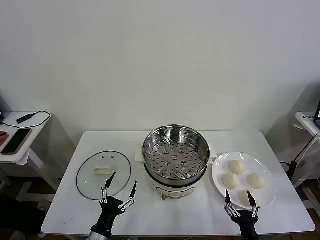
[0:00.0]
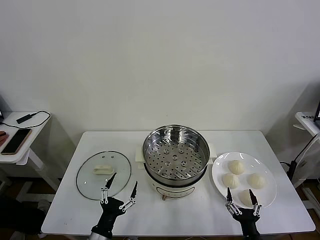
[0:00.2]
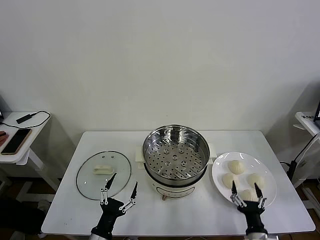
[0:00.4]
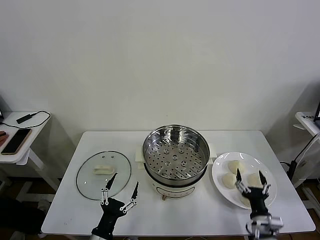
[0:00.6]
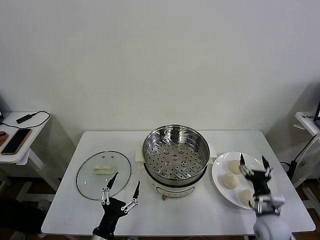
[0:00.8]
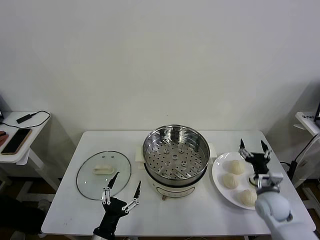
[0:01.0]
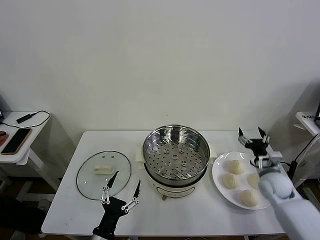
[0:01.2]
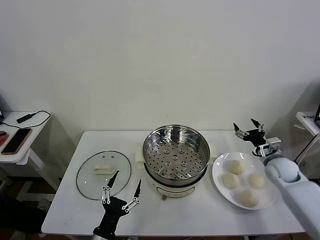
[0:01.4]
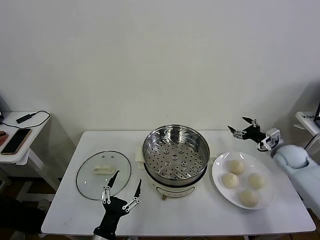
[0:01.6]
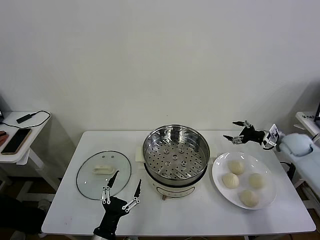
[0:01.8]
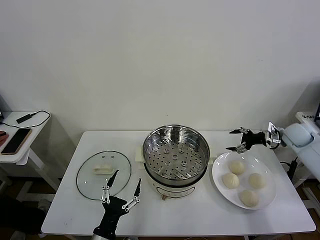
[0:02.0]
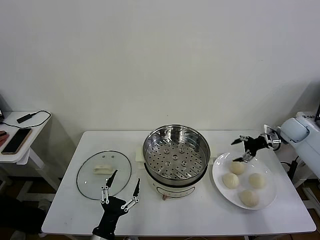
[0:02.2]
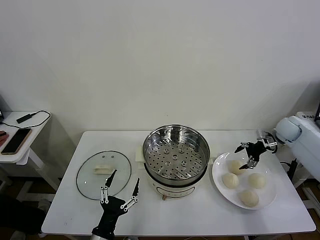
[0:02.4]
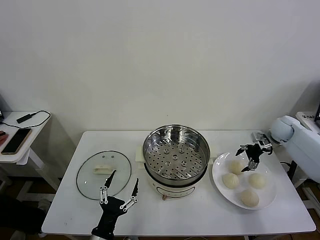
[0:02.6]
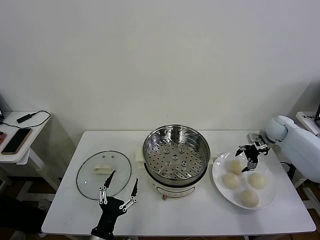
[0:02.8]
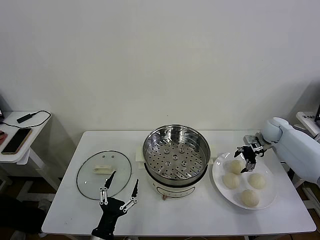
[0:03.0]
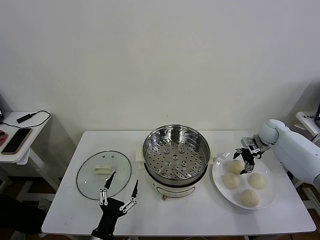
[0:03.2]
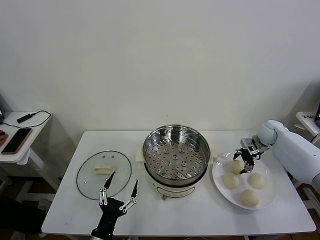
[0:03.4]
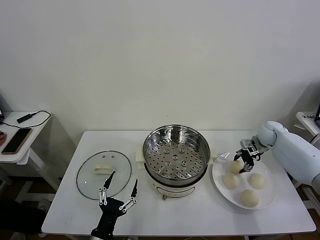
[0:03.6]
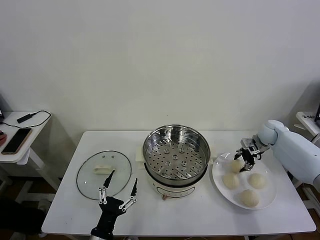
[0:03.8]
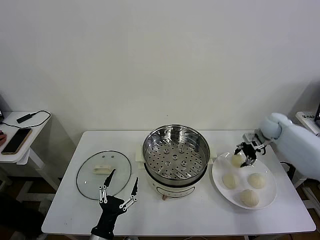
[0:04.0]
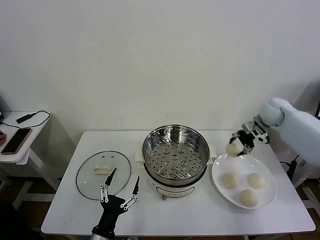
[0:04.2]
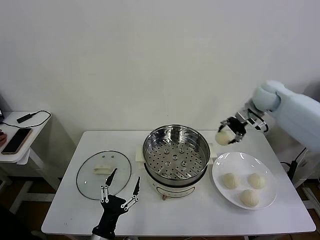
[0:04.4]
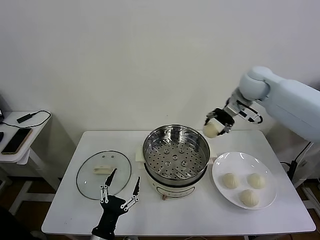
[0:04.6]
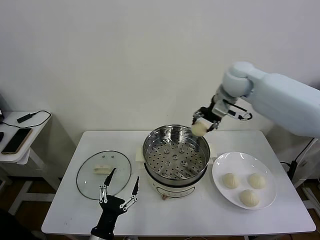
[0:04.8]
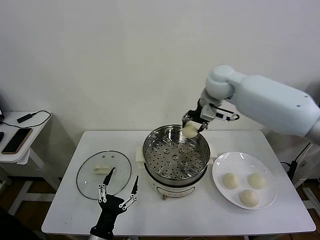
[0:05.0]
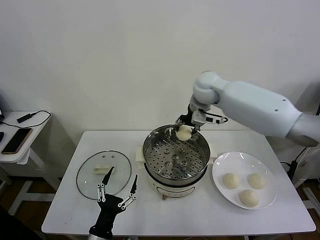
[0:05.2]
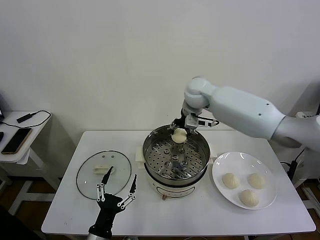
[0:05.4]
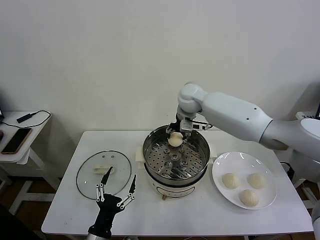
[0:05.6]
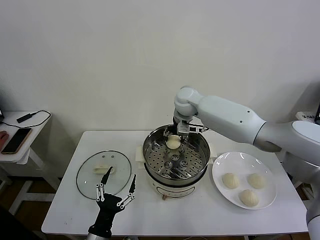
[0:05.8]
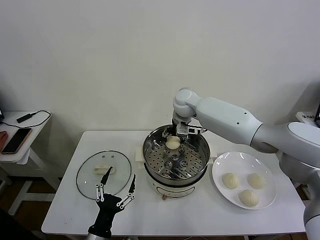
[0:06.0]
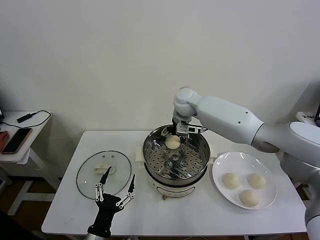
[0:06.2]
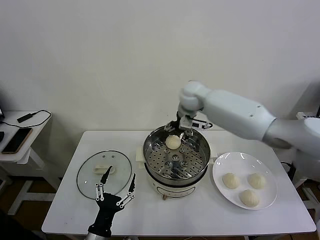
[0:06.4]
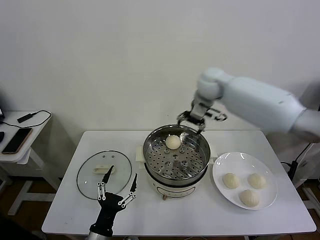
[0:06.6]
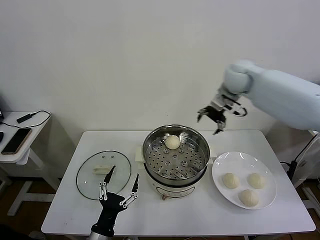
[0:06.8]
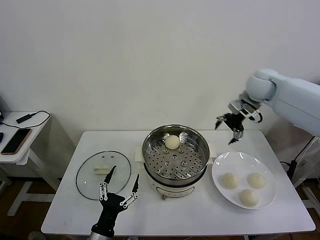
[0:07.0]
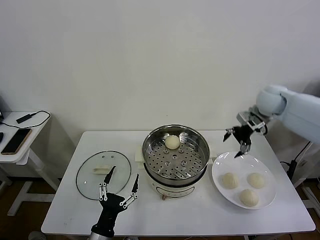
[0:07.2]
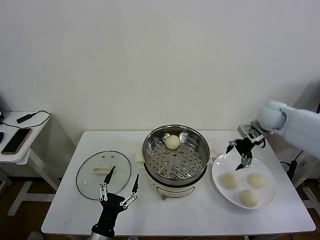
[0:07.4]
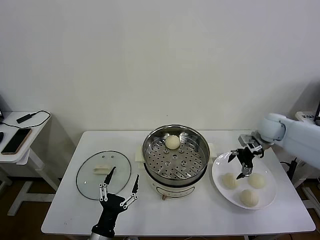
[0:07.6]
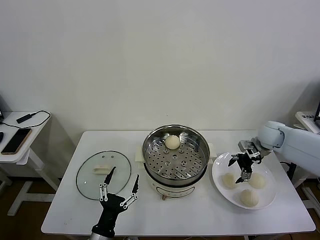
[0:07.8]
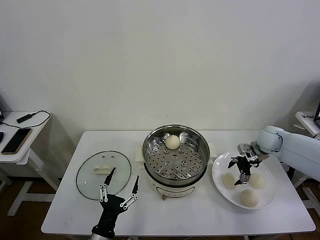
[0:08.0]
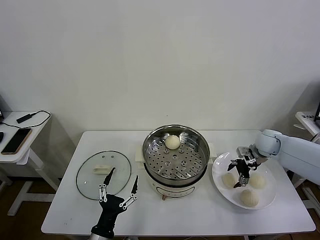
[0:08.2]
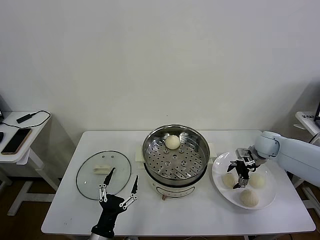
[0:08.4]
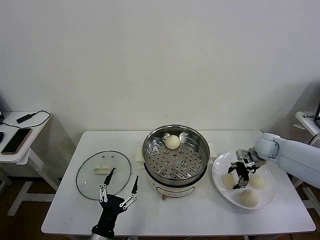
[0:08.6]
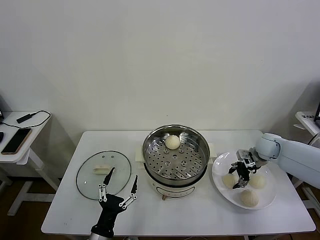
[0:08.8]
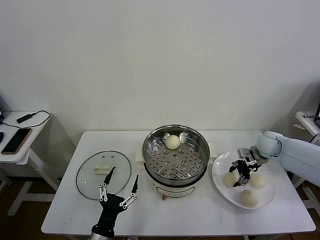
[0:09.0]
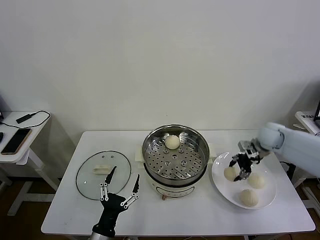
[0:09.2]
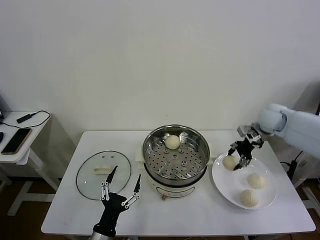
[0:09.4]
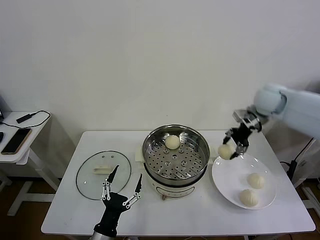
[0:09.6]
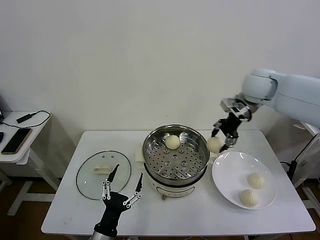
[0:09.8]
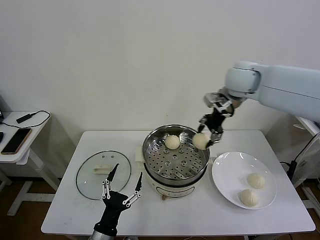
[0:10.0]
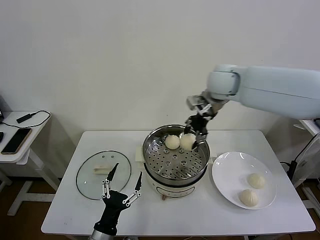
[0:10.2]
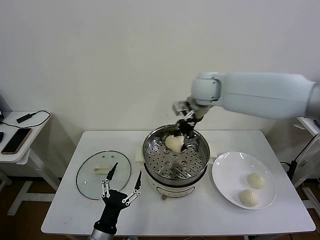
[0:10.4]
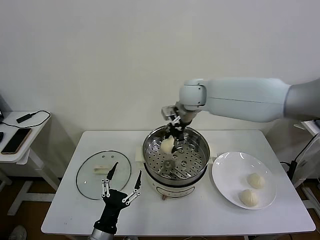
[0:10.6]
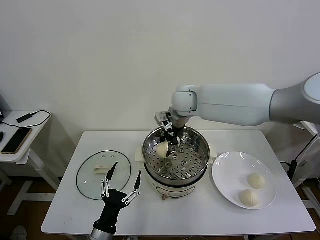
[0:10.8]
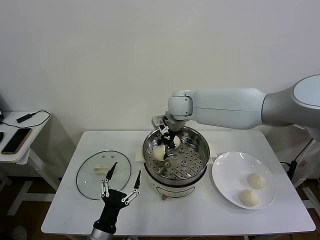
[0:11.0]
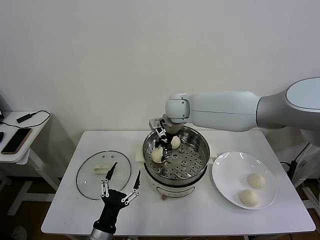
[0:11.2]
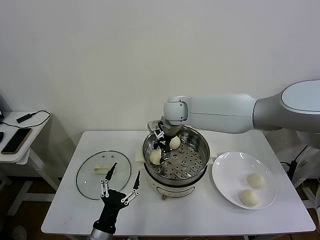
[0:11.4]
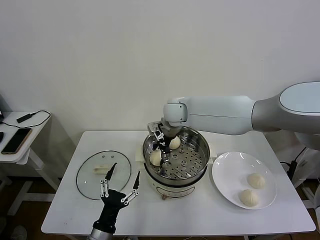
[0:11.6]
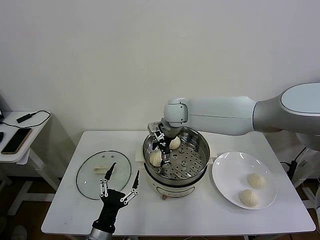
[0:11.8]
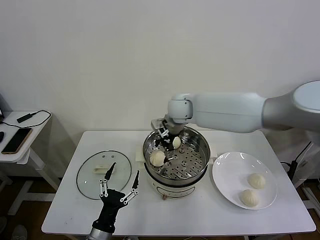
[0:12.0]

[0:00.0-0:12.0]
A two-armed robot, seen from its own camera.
Task of the whole recording: take steamed baozi put them in steamer then cover it.
Step, 0.0 to 3.6 s: Grasp the baozi in the plate with right gripper.
Step, 3.8 to 6.2 s: Place the baozi on the steamer with right gripper.
Step, 6.4 to 8.8 s: Grasp the baozi in the plate with right gripper.
Step, 9.0 to 11.6 s: Place the baozi on the steamer with right gripper.
1.6 to 3.0 s: The right gripper goes about 10 cm forward.
3.0 to 4.4 s: The right gripper heads upward and to the left, covering approximately 25 cm, and closes.
4.4 to 6.0 s: The right gripper moves to the left, about 25 cm, and opens up.
6.0 to 7.6 s: The right gripper is displaced to the right by roughly 30 cm.
7.6 to 9.0 s: The right gripper closes up.
9.0 to 10.4 s: The right gripper moves to the left and upward, approximately 35 cm.
10.4 to 12.0 s: The right gripper is displaced downward by about 5 cm, and opens.

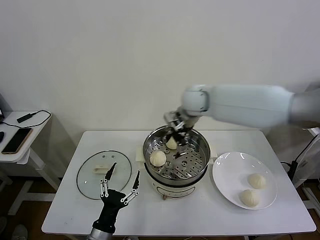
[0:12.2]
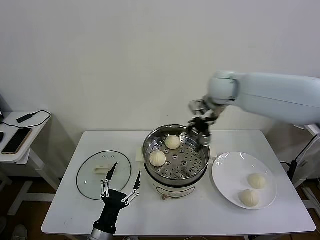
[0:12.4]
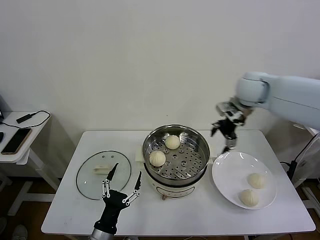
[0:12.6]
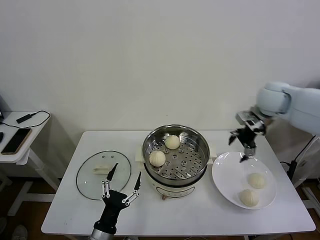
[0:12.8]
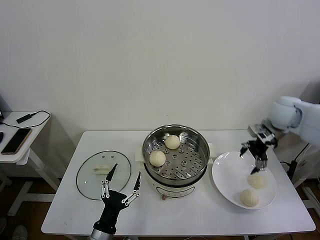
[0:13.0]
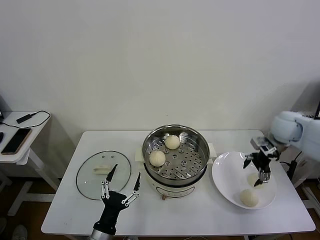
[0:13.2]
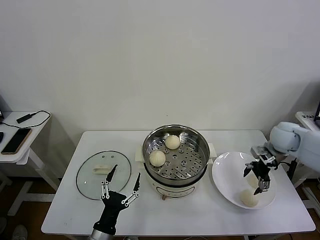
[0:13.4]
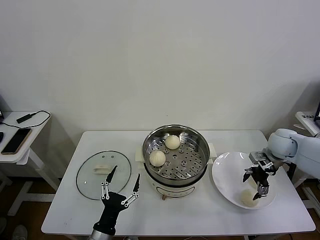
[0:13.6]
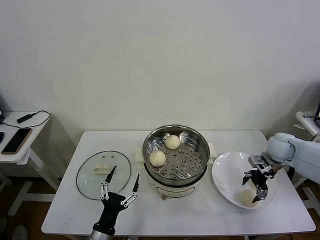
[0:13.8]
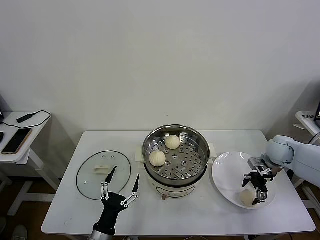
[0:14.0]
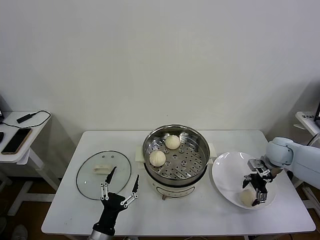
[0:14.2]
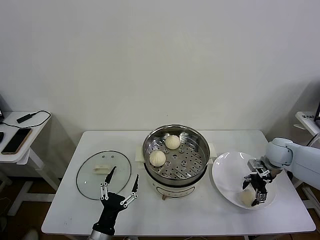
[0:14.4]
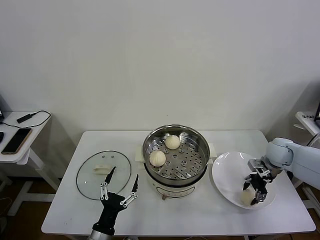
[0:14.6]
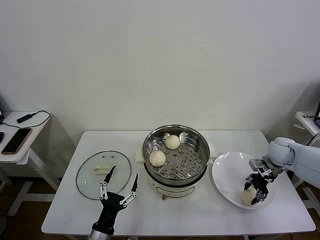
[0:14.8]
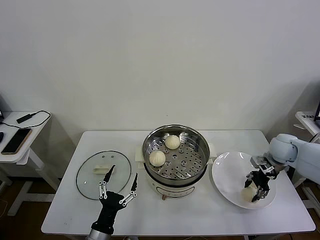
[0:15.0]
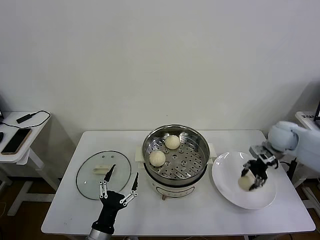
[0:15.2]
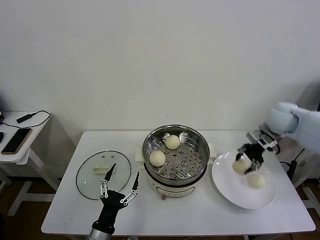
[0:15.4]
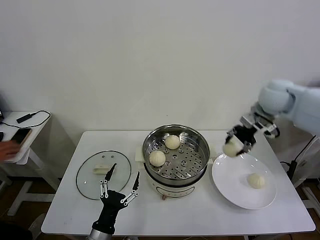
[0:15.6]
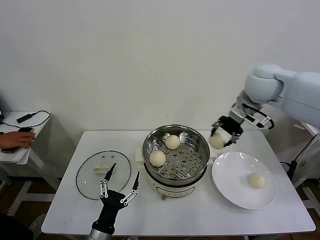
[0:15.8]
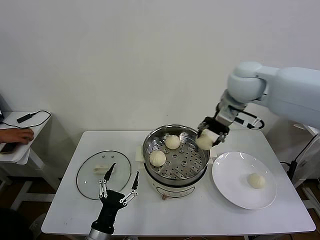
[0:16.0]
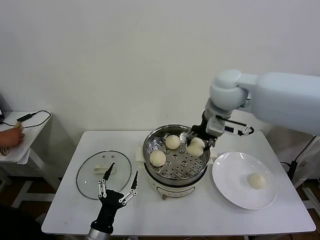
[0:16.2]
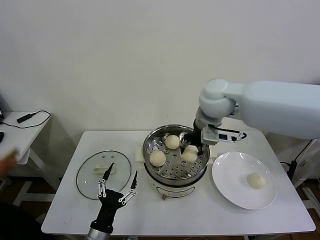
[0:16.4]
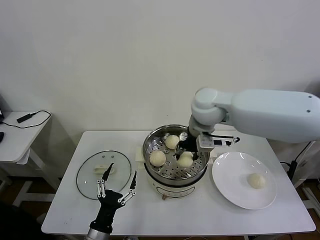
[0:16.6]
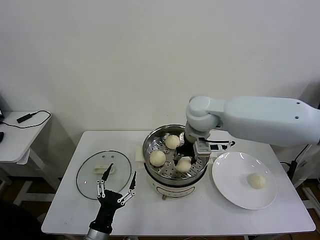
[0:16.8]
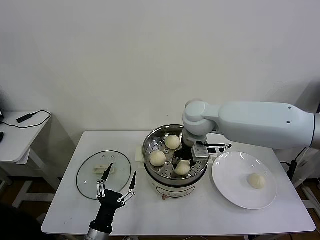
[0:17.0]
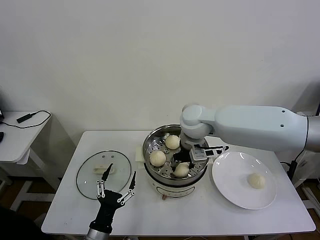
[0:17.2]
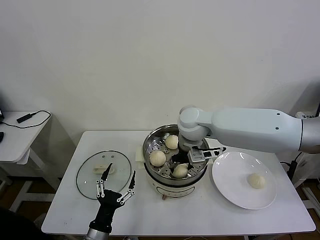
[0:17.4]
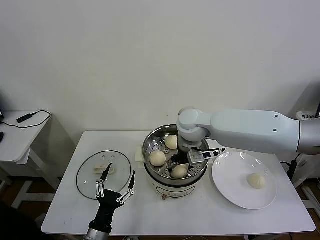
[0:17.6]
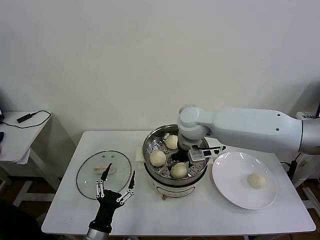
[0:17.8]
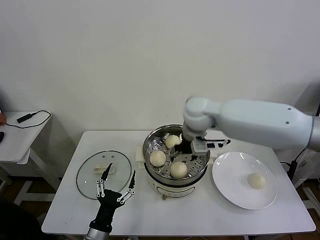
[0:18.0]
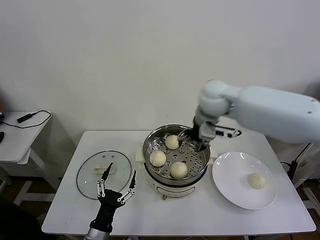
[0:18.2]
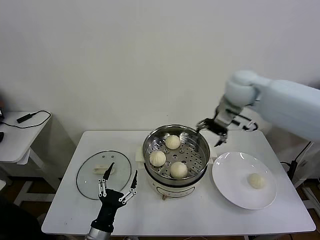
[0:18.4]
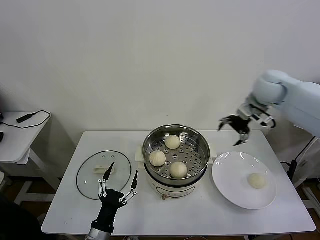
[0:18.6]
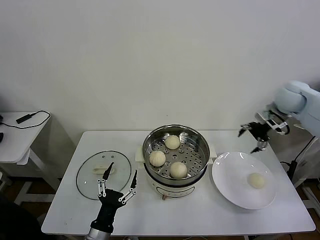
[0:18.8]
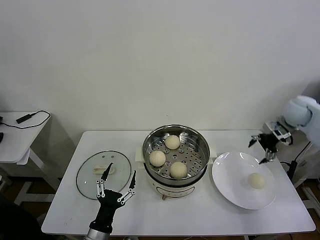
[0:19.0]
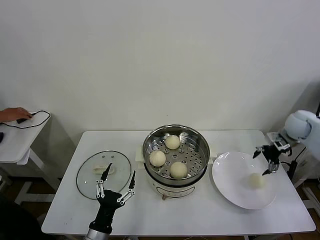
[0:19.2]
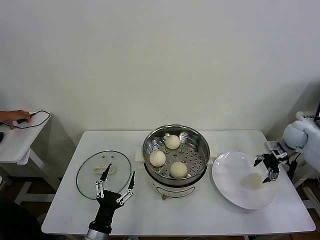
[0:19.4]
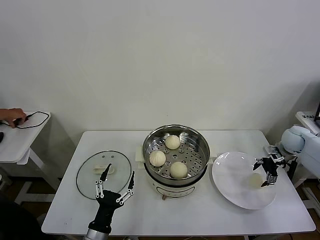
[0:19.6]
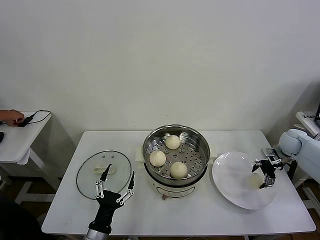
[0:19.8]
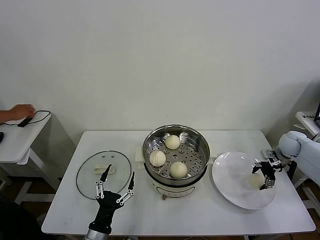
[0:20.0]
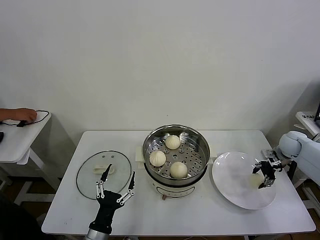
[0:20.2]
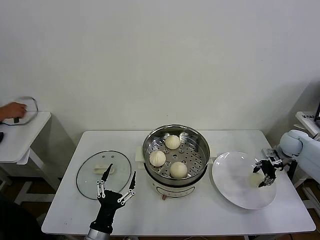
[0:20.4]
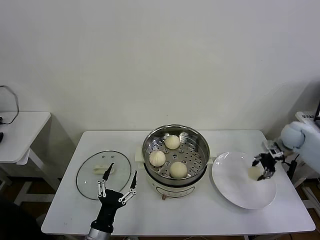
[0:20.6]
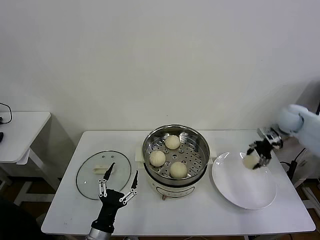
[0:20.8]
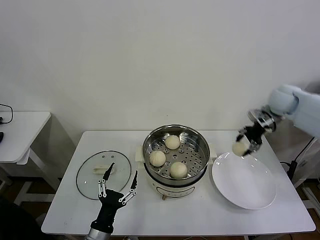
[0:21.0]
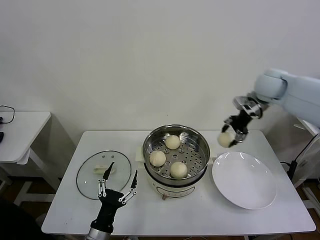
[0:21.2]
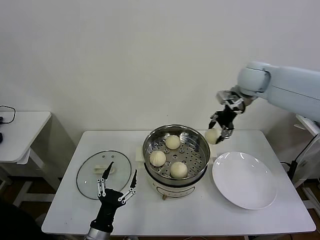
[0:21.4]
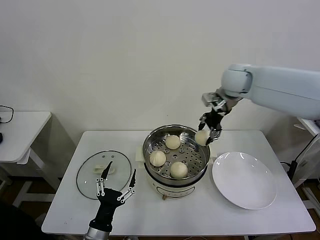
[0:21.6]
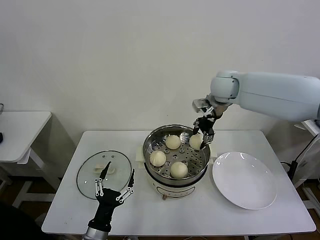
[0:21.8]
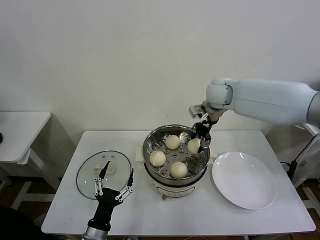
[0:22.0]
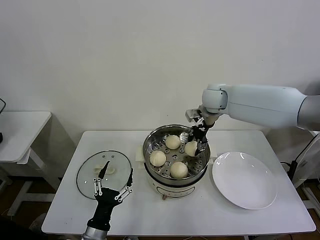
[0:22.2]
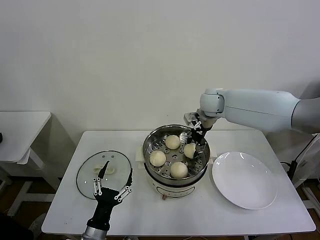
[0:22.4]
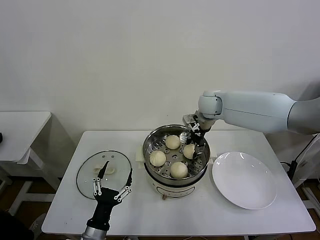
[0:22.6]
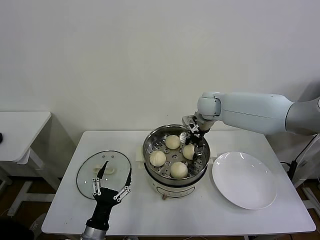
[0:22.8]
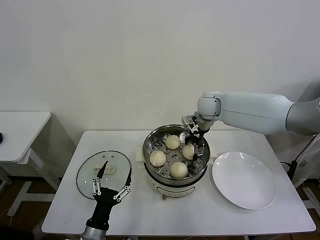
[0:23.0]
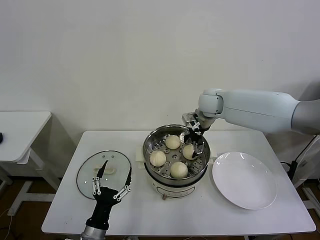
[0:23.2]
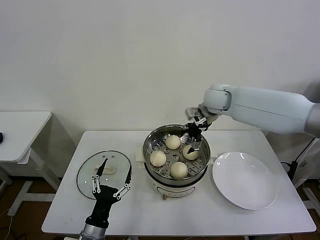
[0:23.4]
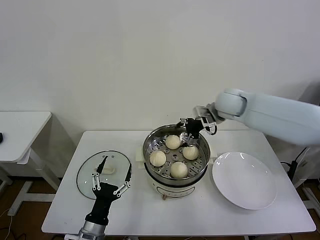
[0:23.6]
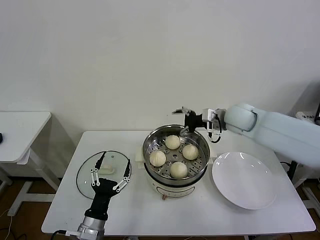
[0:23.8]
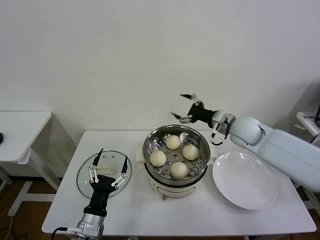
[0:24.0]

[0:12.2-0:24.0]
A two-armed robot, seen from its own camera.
Task of the whole recording: take steamed baozi put them in steamer then cover it.
Step, 12.2 to 14.8 s: Grasp the baozi in the plate with right gripper.
Step, 15.0 to 17.6 s: Place the baozi on the steamer with right gripper.
Step, 18.0 to 20.2 s: Grasp the baozi in the plate with right gripper.
Step, 20.4 to 23.0 s: Place the baozi on the steamer with right gripper.
12.2 to 13.6 s: The right gripper heads to the right and downward, covering roughly 35 cm.
13.6 to 15.2 s: The right gripper shifts by about 5 cm, and closes.
15.2 to 16.6 s: The right gripper heads to the left and upward, covering some 30 cm.
16.6 to 18.2 s: The right gripper reaches about 5 cm downward, then returns, and opens up.
18.2 to 19.6 s: The right gripper heads to the right and downward, covering some 40 cm.
19.6 to 21.0 s: The right gripper shifts about 20 cm upward and to the left, and closes its fingers.
21.0 to 22.6 s: The right gripper travels to the left by roughly 20 cm.
22.6 to 24.0 s: The right gripper moves to the right and backward, roughly 15 cm, and opens up.
